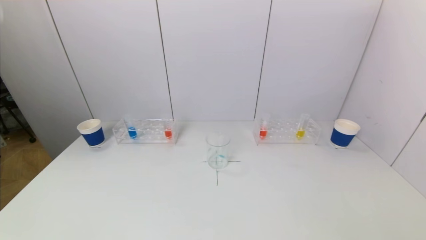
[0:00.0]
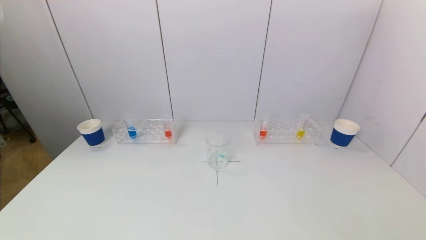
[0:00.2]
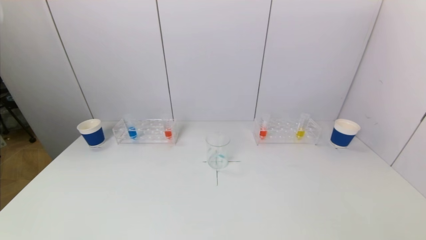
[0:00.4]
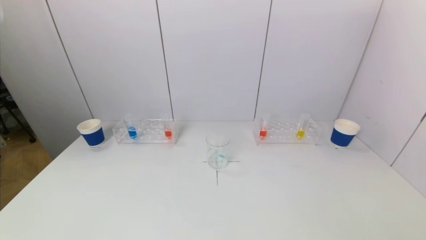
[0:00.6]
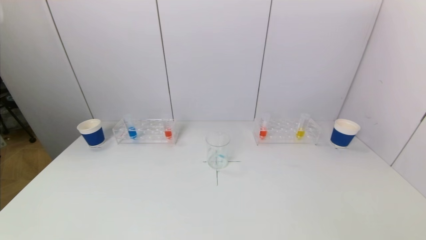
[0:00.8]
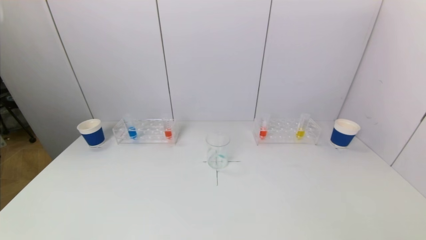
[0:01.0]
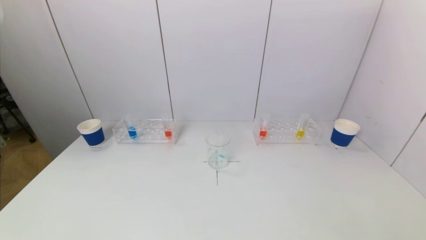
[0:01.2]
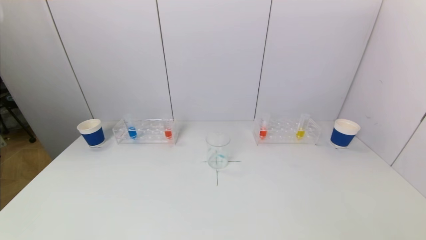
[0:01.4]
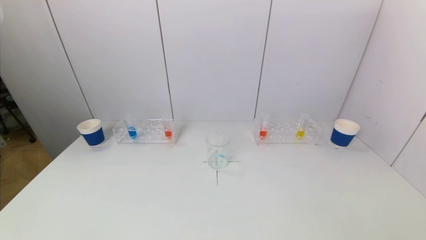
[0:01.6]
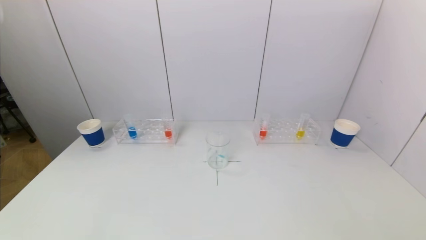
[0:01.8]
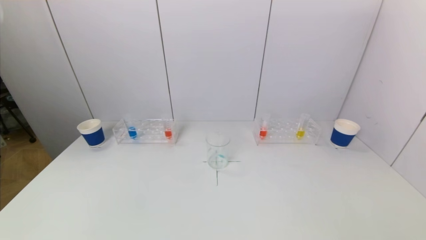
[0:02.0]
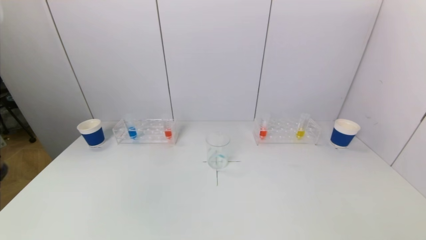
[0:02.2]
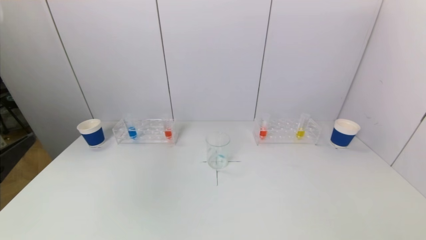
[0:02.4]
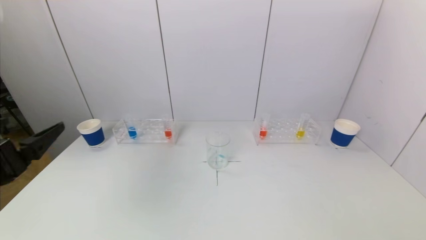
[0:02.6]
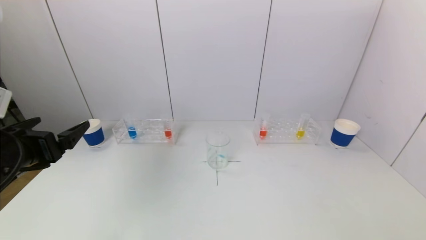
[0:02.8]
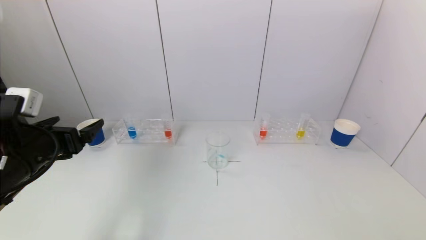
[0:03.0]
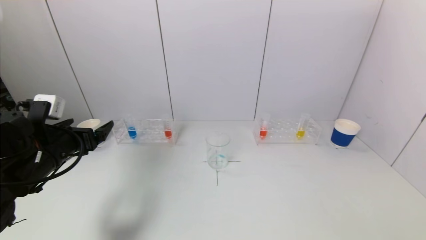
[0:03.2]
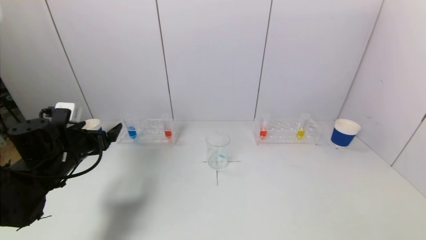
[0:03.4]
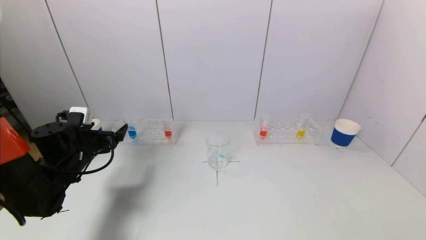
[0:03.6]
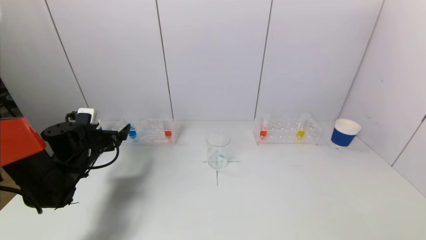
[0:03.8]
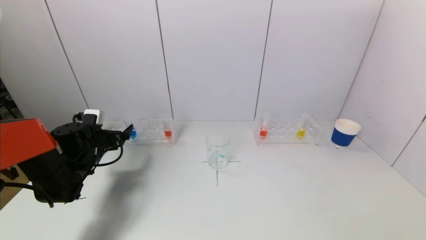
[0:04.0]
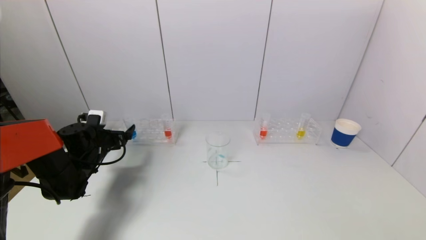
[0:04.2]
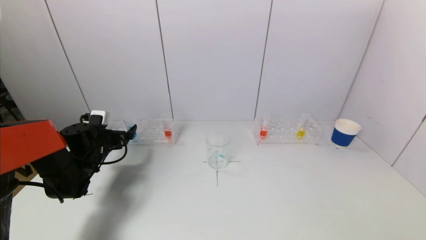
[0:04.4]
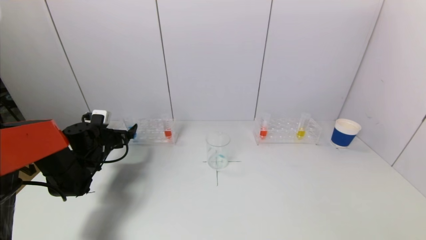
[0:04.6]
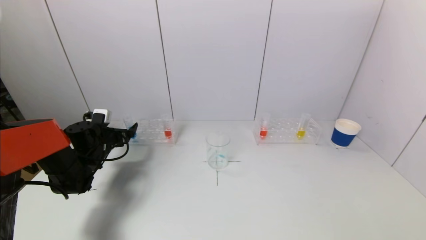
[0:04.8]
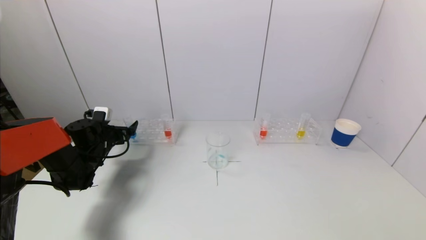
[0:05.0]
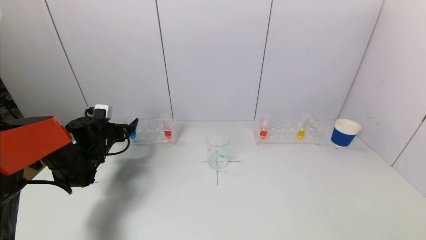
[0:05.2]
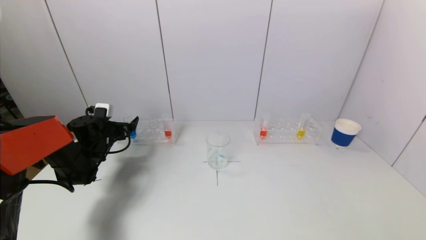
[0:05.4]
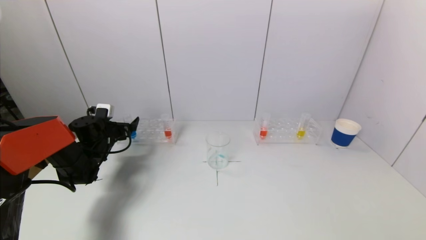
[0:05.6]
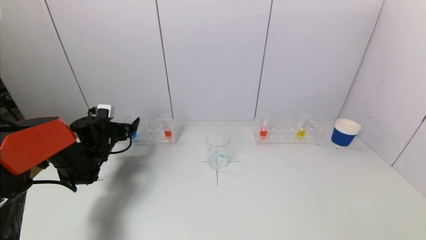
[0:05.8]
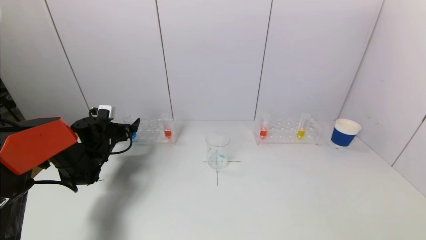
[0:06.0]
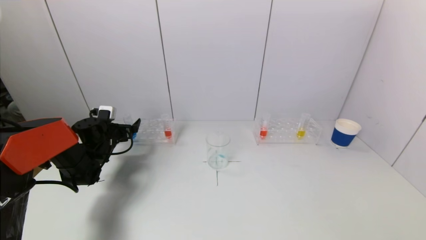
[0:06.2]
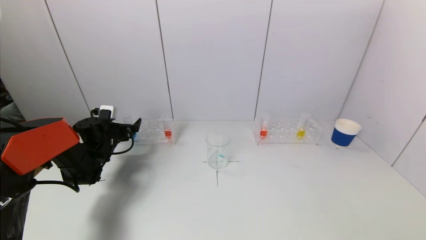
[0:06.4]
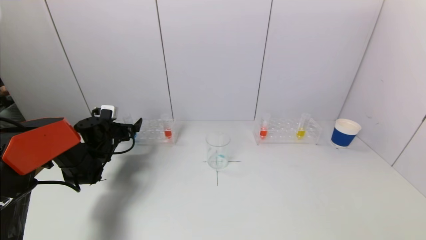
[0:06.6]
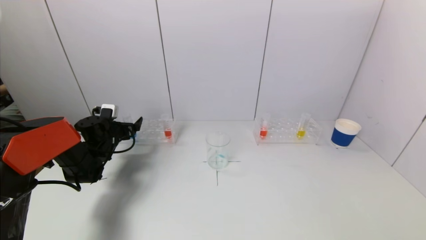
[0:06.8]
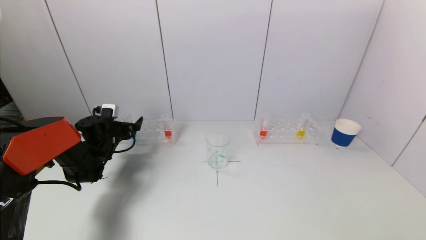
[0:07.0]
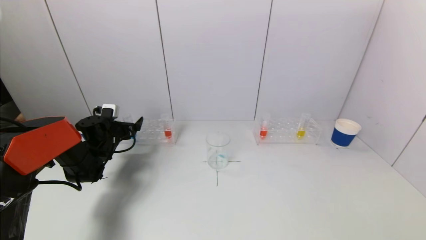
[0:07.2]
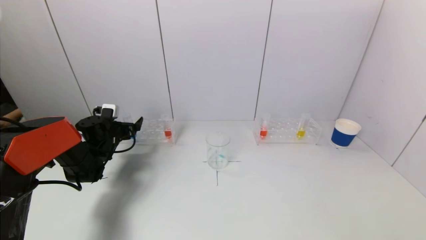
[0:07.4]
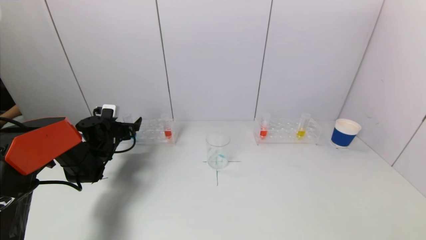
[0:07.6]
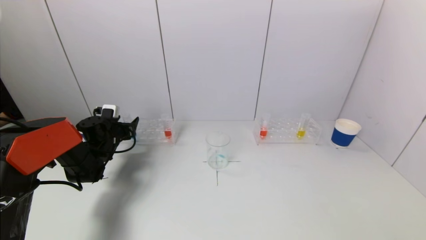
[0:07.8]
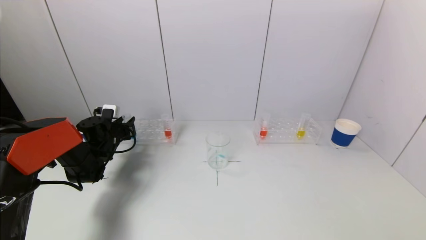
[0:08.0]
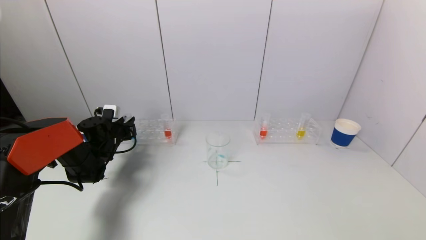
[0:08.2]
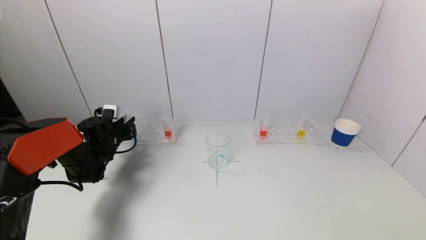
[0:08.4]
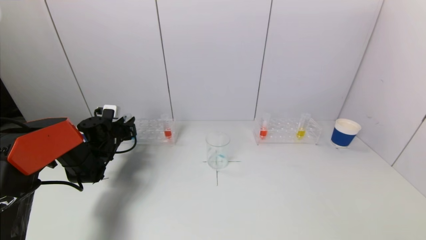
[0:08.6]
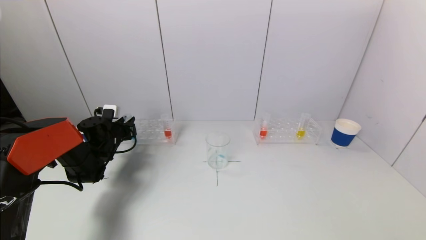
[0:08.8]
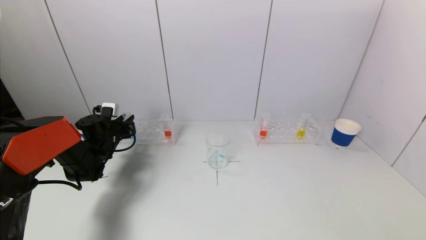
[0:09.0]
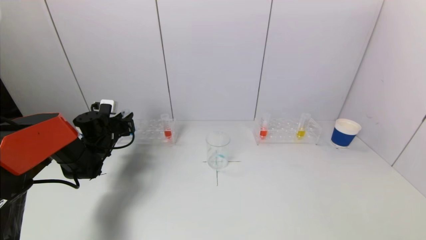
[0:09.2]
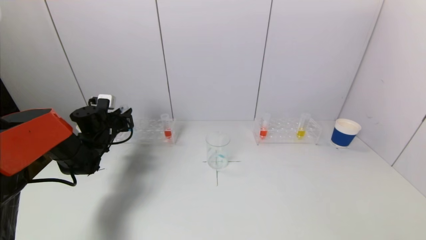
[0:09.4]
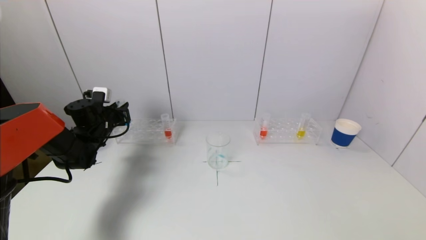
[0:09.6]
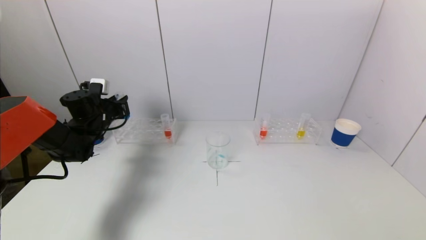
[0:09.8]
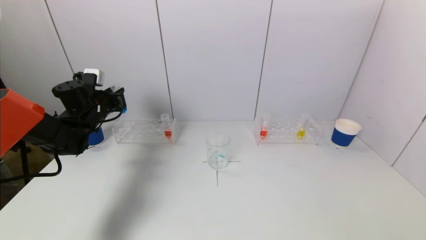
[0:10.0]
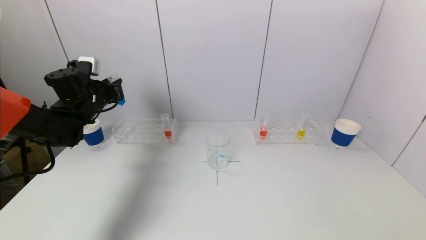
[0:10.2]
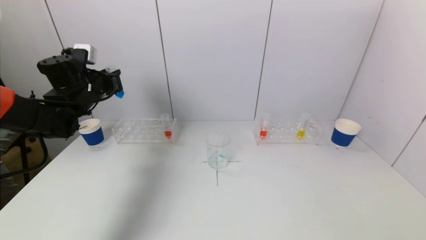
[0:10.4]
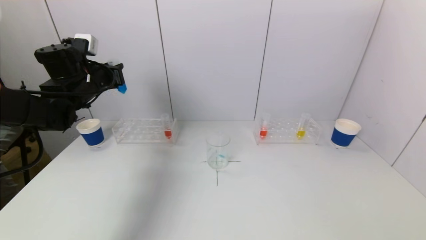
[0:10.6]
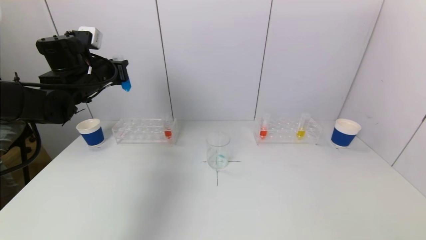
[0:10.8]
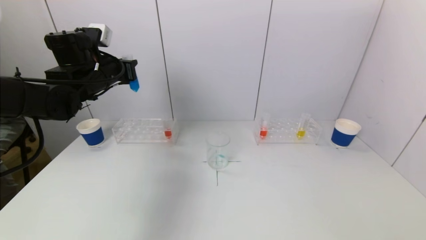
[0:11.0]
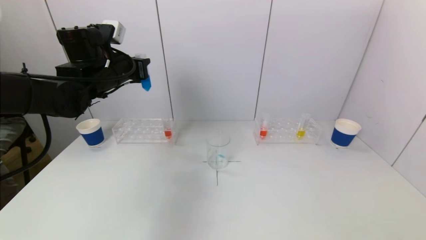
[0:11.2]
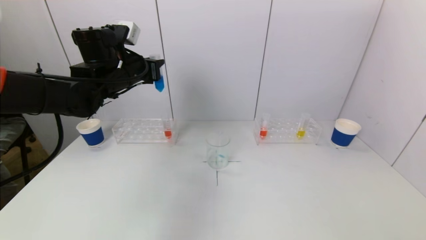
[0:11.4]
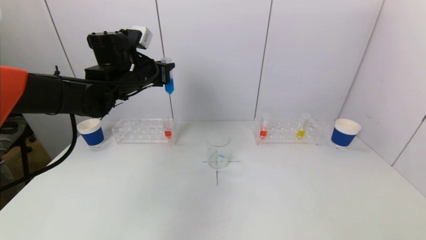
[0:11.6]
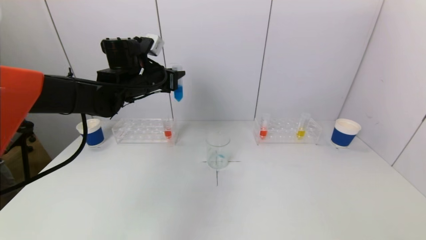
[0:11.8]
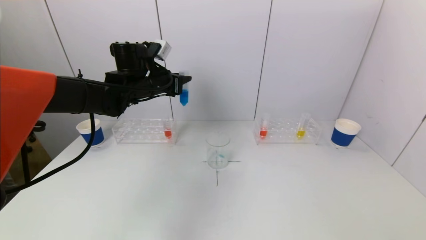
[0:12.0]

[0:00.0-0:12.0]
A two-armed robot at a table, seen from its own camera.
Task of the whole recording: pick up a test tube with pigment on left test tube rack and a test tube with pigment on right test tube rack by grippers and pour them into the beaker.
Step, 0:00.0 to 0:08.6: Grasp the blue reagent with the left gripper.
0:01.6 to 0:03.0: The left gripper travels forward by roughly 25 cm.
0:03.0 to 0:04.4: The left gripper shifts approximately 20 cm forward and downward.
0:04.4 to 0:06.0: The grippers move only a little.
0:06.0 to 0:07.6: Both grippers stay put.
0:07.6 to 0:09.0: The left gripper closes up.
0:09.0 to 0:10.4: The left gripper shifts some 15 cm upward.
0:10.4 to 0:12.0: The left gripper moves to the right, about 15 cm.

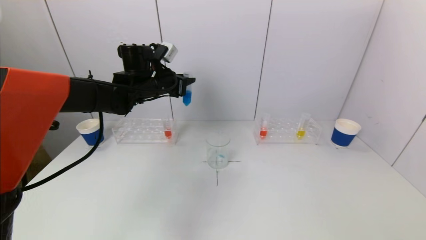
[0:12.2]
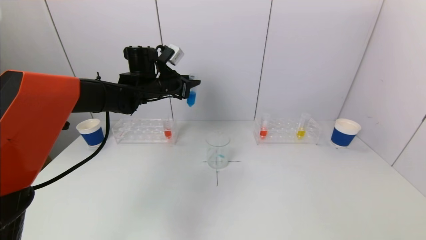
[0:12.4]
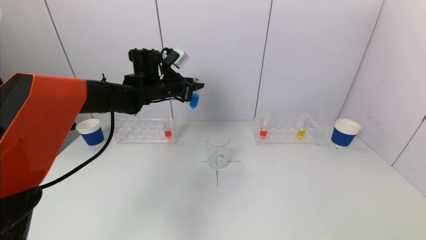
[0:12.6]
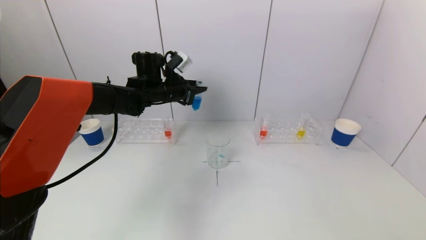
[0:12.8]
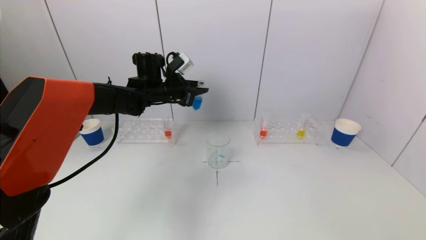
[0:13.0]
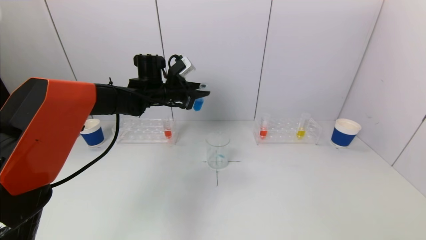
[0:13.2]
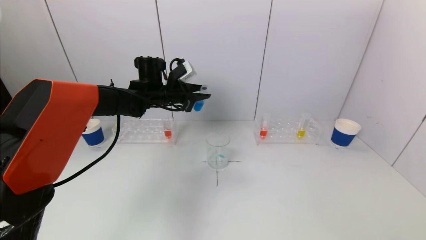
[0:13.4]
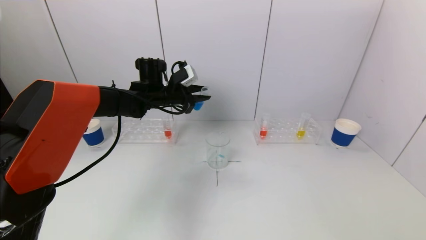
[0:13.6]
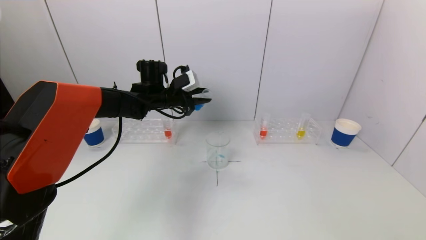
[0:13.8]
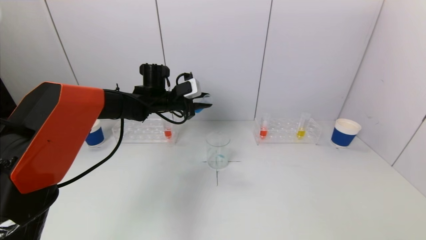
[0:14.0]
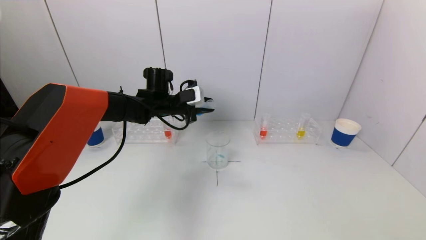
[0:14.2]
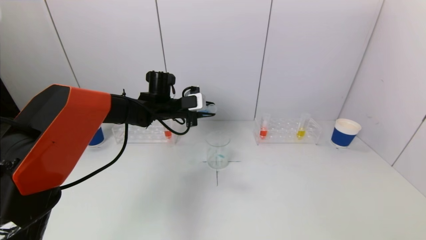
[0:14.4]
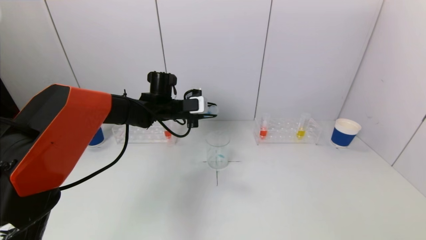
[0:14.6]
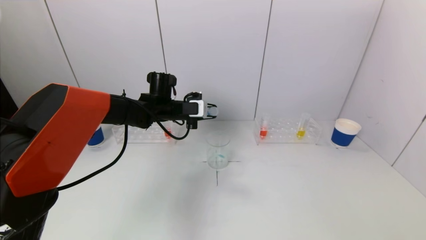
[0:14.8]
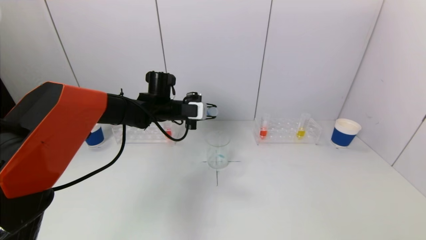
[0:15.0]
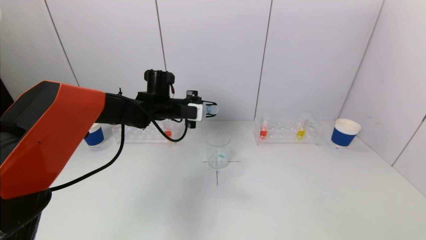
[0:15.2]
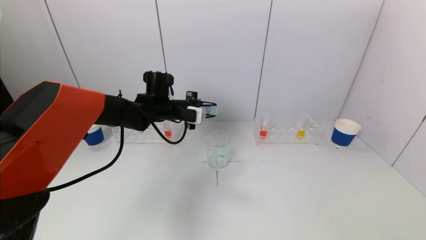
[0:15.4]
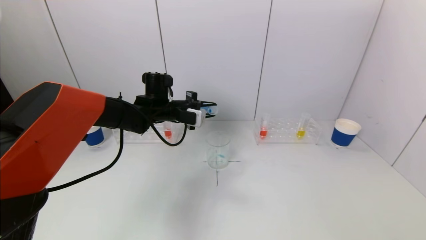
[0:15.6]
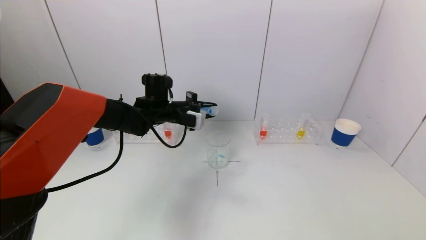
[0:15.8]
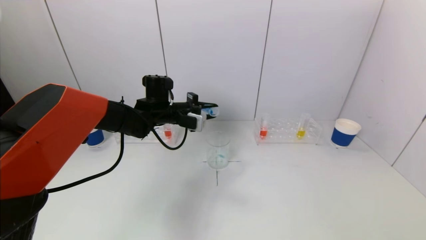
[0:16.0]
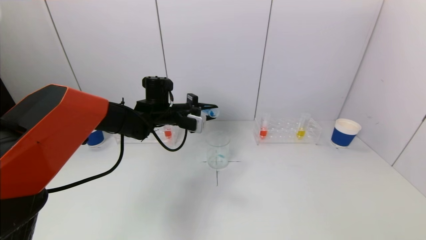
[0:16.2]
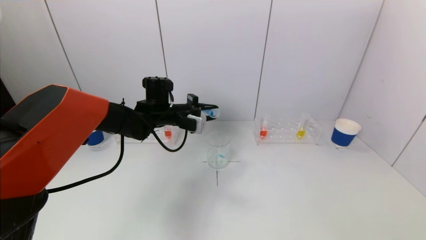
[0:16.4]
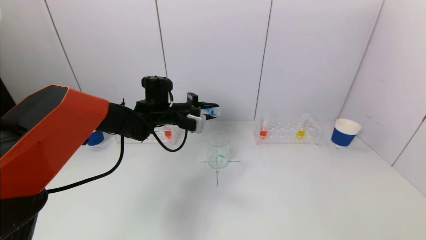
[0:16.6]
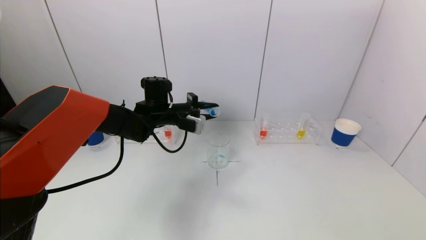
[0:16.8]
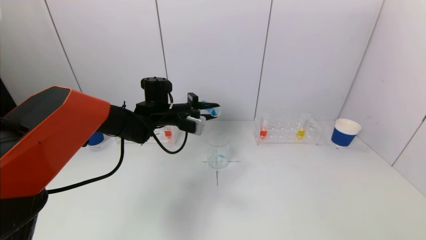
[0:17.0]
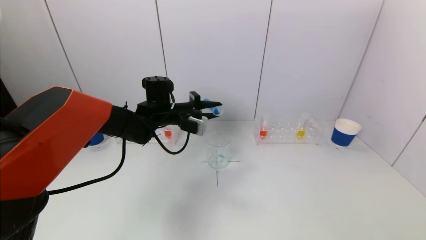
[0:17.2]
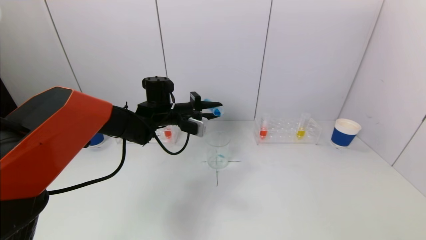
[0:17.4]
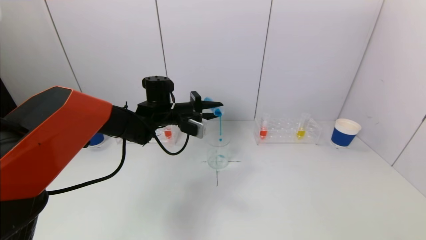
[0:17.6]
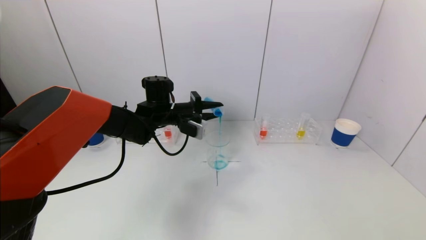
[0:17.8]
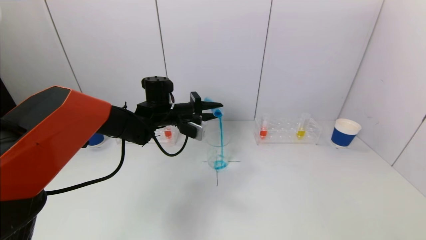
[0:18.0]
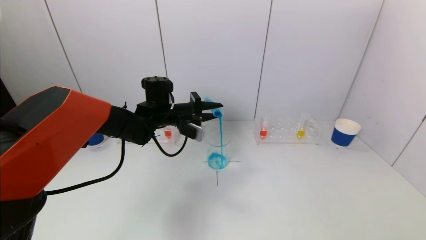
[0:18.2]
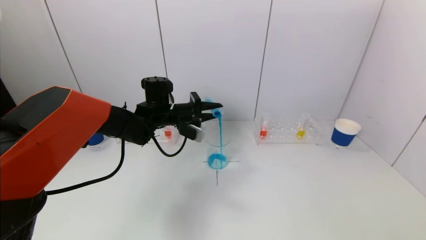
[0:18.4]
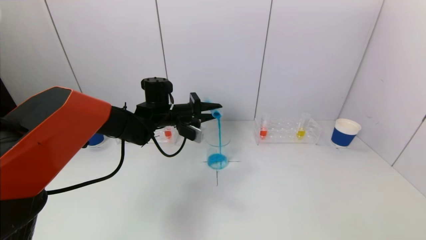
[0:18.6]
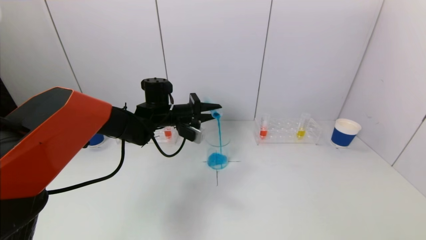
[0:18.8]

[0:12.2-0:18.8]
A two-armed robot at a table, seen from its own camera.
Task of the whole recording: pick up a test tube with pigment on left test tube rack and a test tube with pigment on right test tube rack by grippers and pour them into the beaker.
0:12.2 to 0:13.8: The left gripper changes place by some 5 cm.
0:15.4 to 0:17.2: The grippers make only small movements.
0:17.2 to 0:18.8: The grippers make only small movements.
